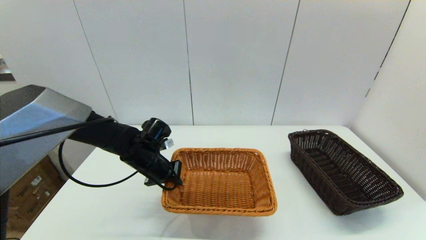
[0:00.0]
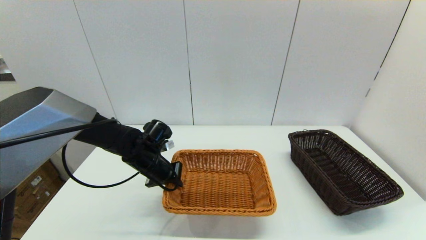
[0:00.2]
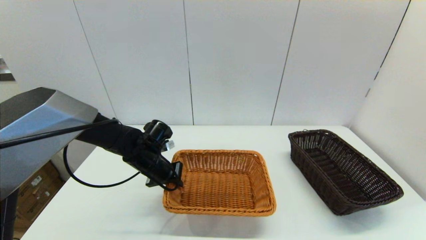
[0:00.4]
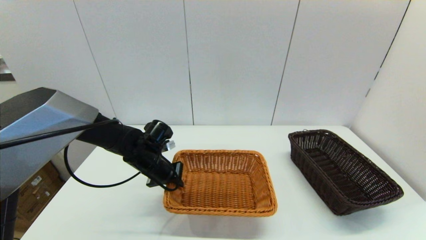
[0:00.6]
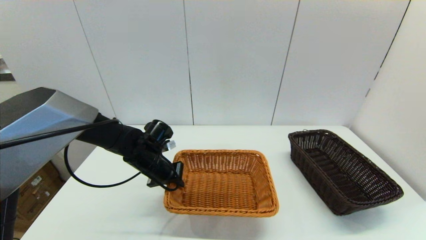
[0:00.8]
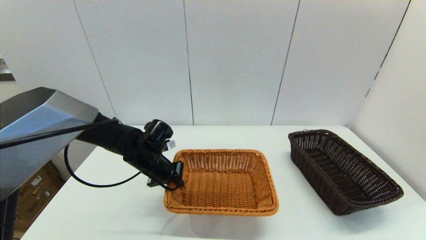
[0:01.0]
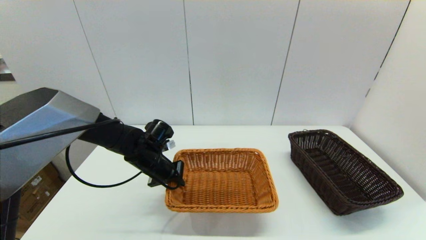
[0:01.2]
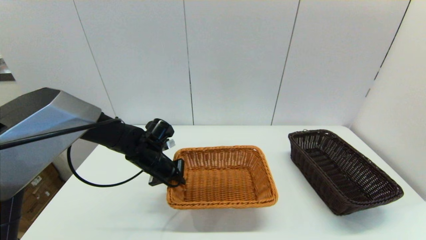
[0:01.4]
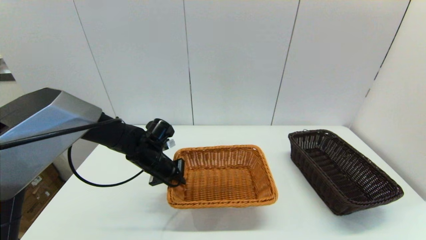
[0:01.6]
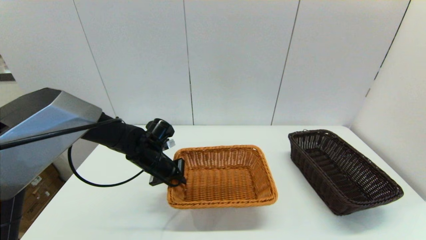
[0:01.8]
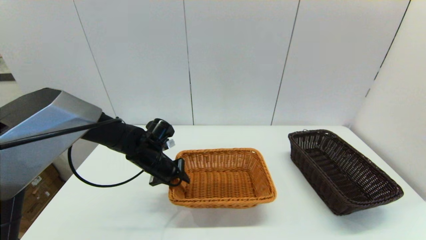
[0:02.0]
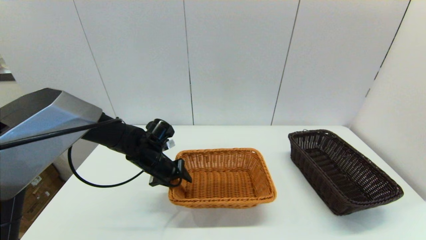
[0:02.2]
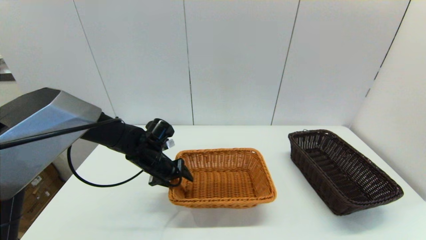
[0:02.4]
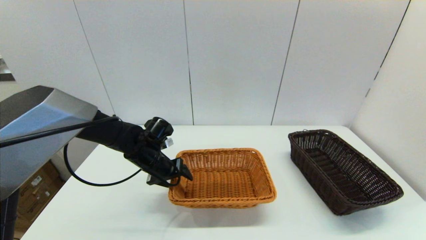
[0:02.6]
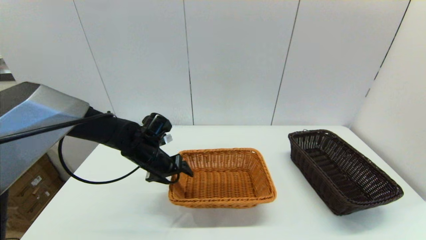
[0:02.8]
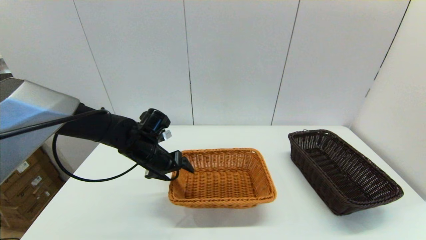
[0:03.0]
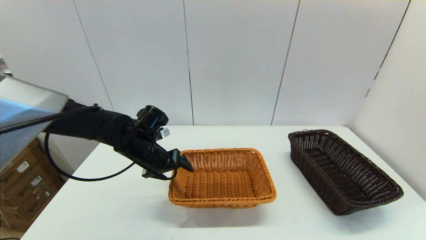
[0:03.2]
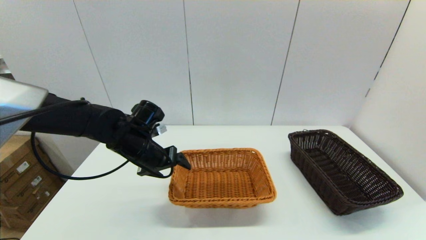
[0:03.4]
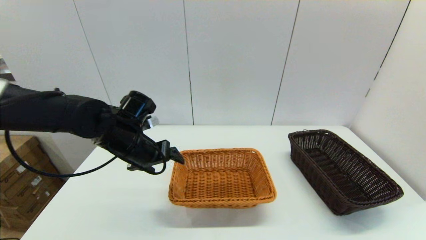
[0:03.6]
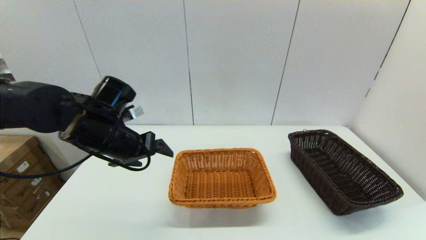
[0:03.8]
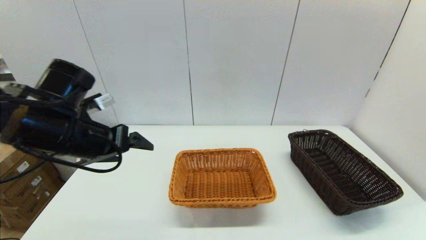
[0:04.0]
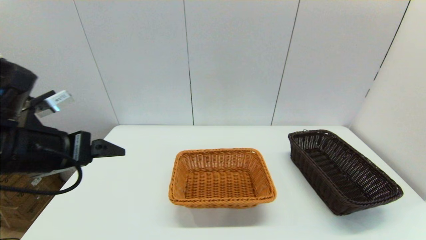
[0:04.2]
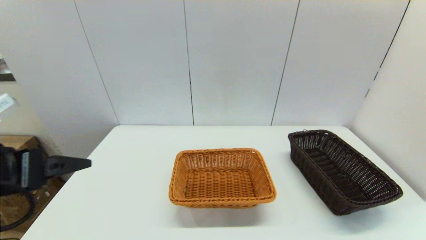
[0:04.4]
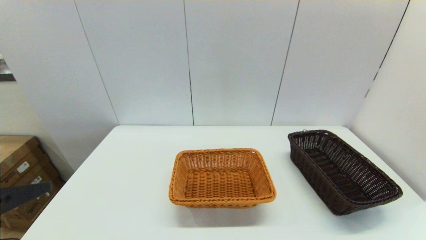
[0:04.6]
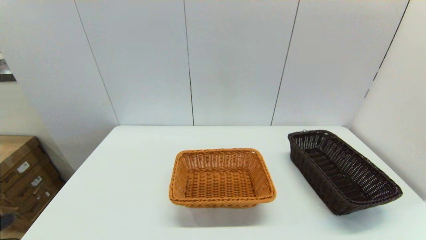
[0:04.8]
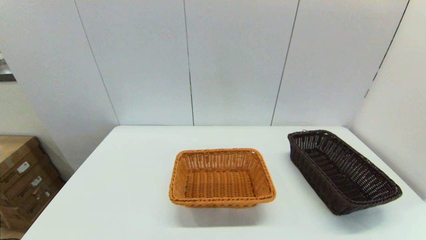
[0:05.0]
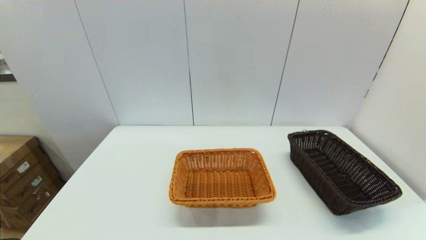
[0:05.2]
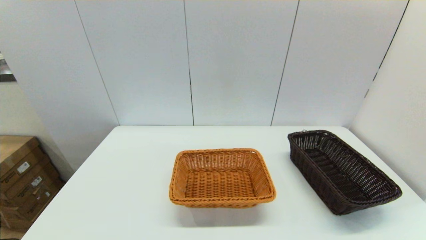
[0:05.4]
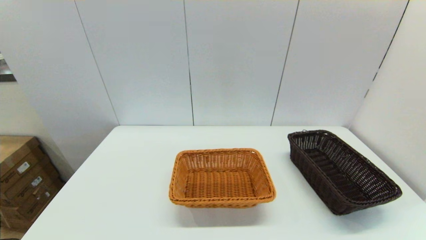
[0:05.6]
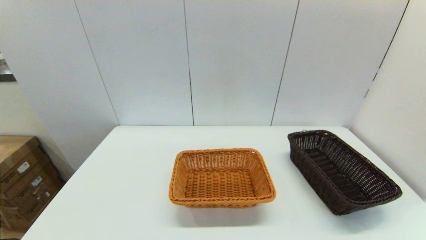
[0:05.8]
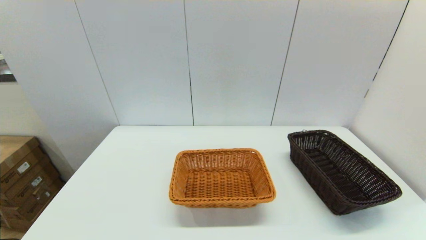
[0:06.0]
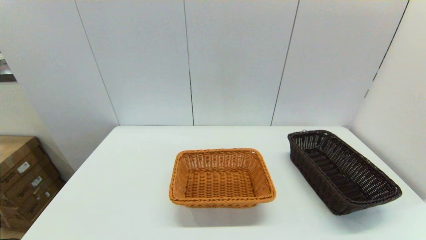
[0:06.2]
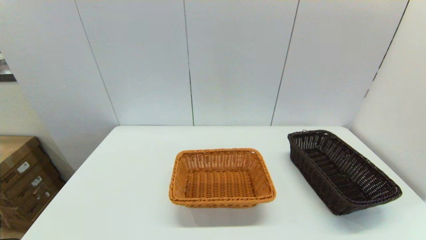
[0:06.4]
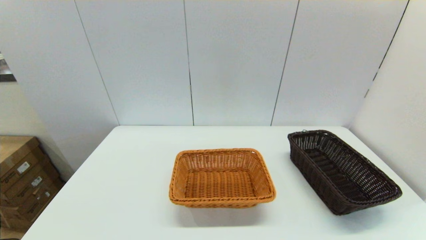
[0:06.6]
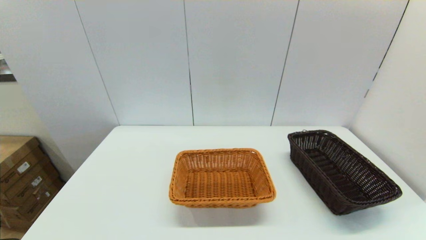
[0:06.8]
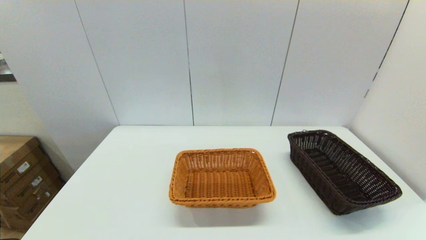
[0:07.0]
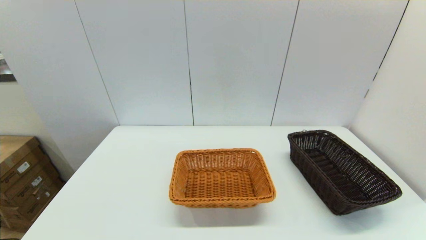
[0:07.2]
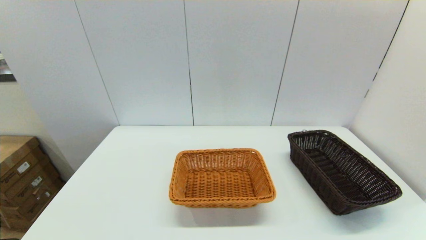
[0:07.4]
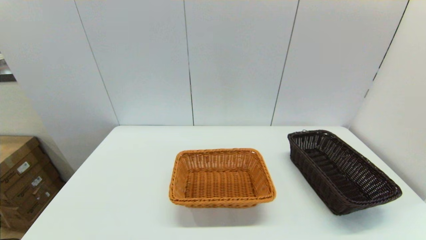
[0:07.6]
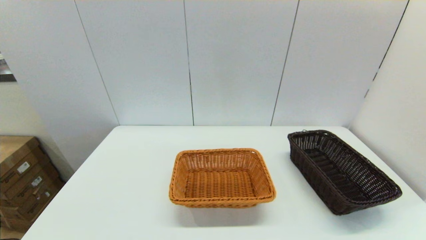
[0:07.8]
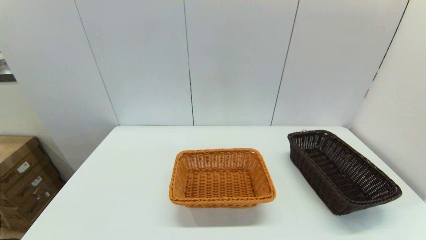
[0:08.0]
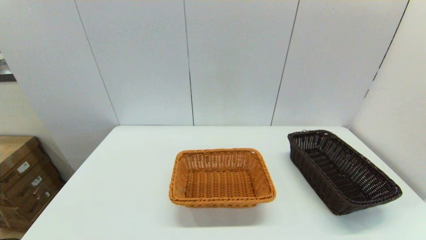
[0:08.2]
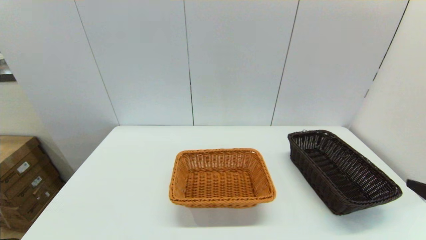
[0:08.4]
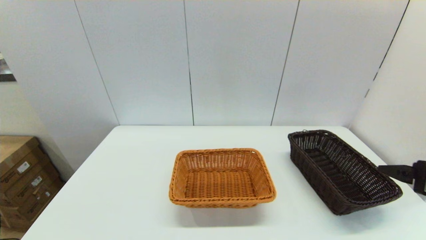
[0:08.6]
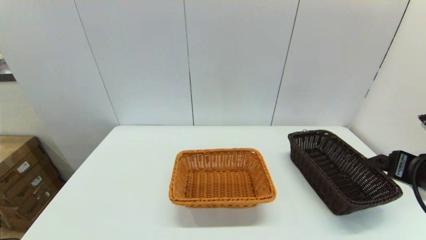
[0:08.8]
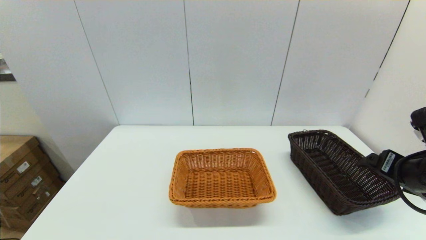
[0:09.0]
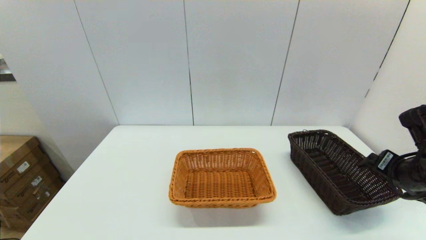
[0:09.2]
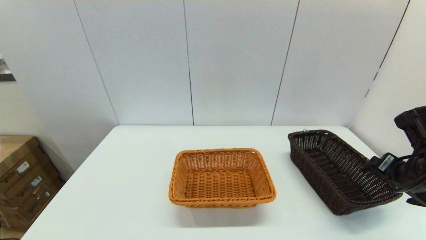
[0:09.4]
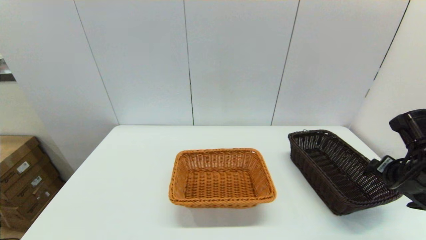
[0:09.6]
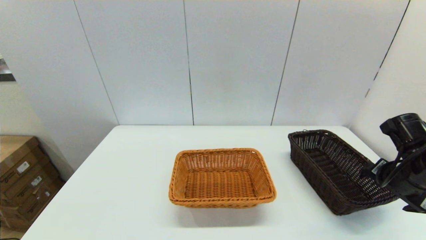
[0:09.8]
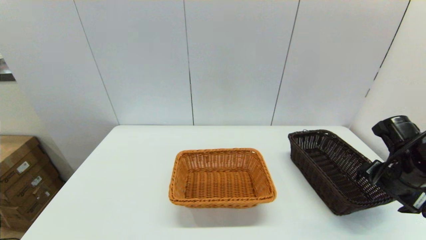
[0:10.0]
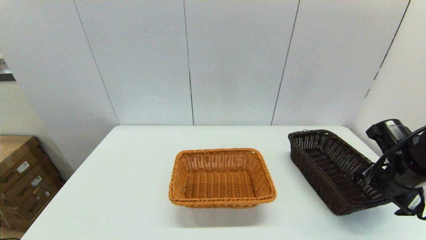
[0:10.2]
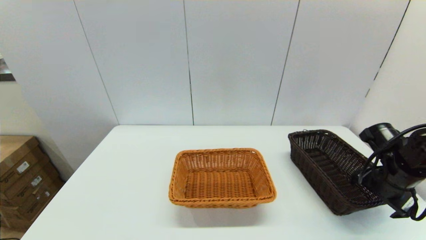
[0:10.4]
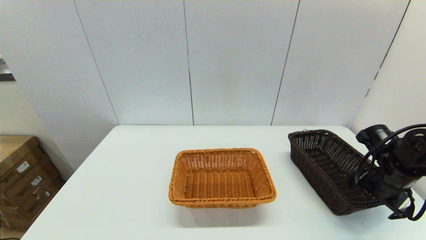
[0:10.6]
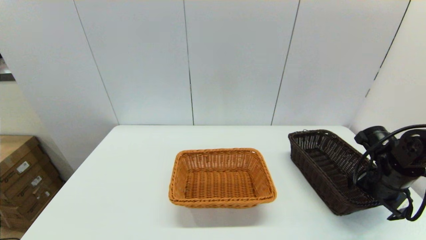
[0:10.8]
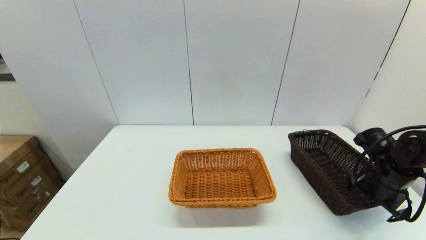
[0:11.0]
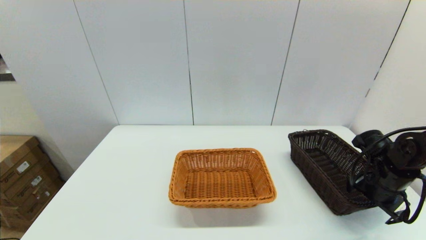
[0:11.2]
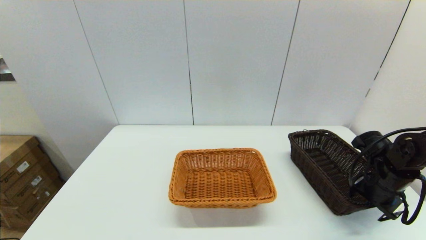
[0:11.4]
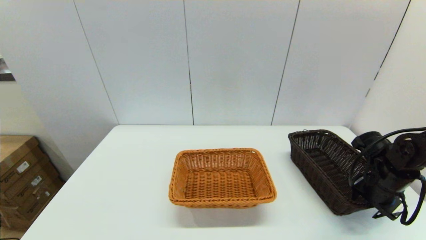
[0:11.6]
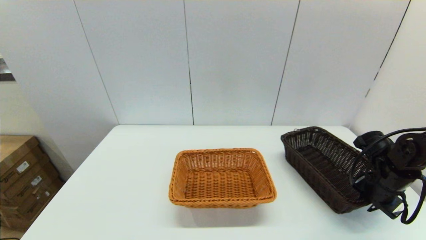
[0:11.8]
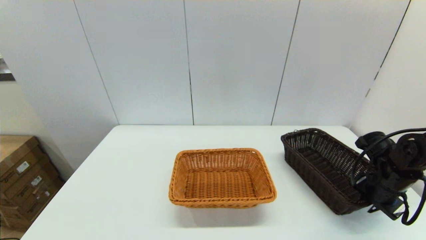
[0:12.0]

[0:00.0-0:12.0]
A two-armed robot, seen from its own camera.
Task of the whole recording: stack a basket on top of another basket.
Step, 0:00.0 to 0:03.4: Place the light basket on the middle of the table with the left gripper.
0:00.0 to 0:01.6: Neither gripper changes place.
0:01.6 to 0:03.0: The left gripper opens its fingers.
0:03.0 to 0:04.4: The left gripper moves backward, upward and to the left, some 30 cm.
0:04.4 to 0:06.0: The left gripper travels backward by some 20 cm.
0:07.6 to 0:09.0: The right gripper is displaced forward by about 25 cm.
0:09.0 to 0:10.4: The right gripper is displaced downward and forward by some 10 cm.
0:10.4 to 0:12.0: The right gripper closes its fingers.

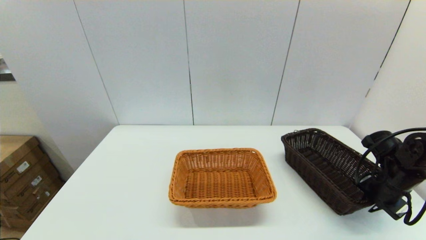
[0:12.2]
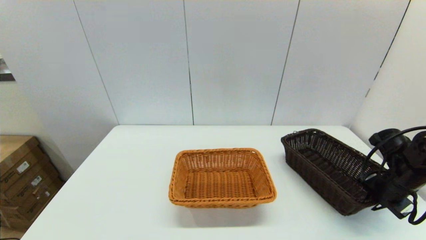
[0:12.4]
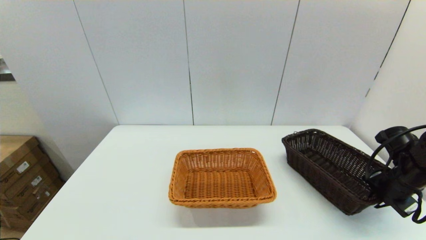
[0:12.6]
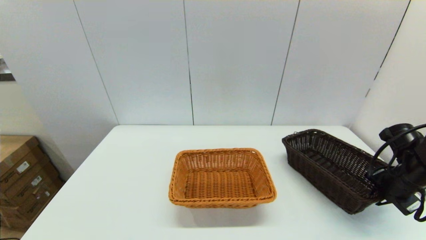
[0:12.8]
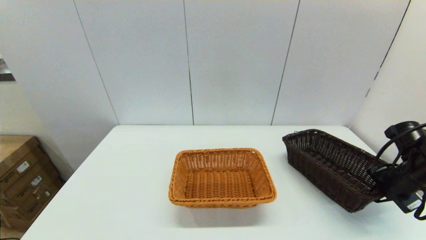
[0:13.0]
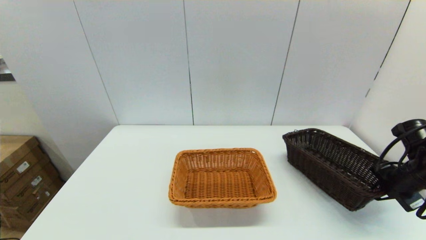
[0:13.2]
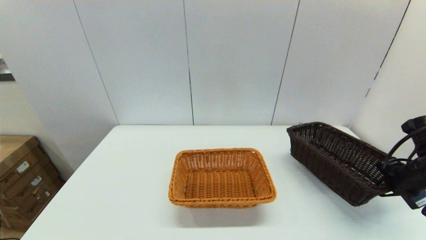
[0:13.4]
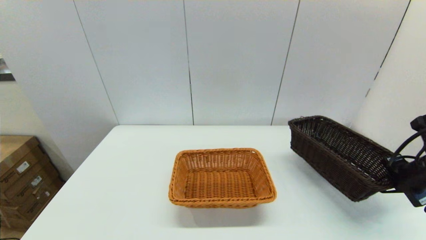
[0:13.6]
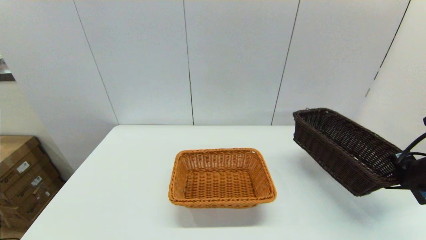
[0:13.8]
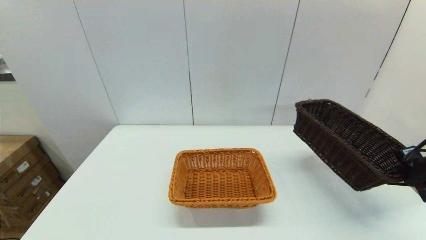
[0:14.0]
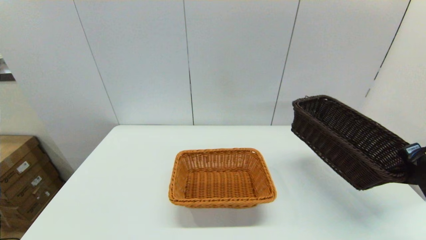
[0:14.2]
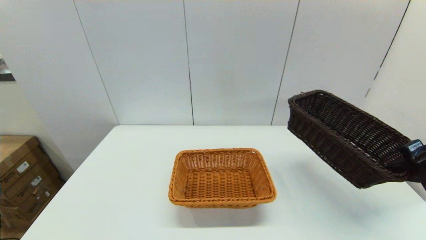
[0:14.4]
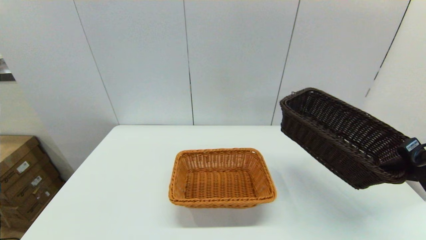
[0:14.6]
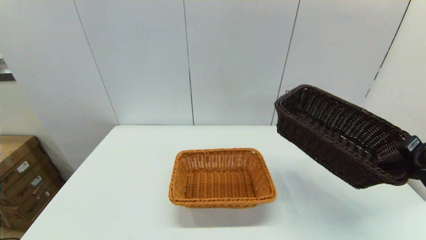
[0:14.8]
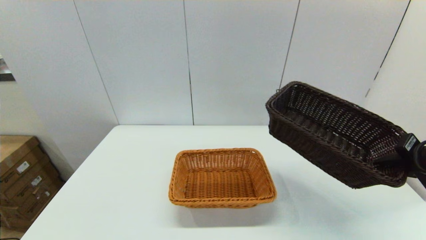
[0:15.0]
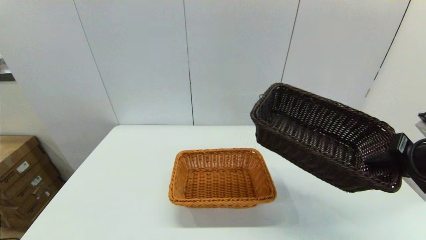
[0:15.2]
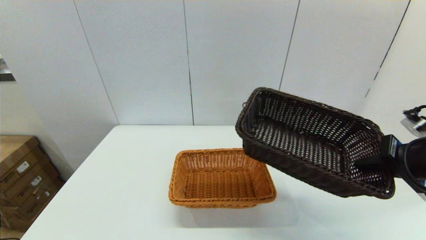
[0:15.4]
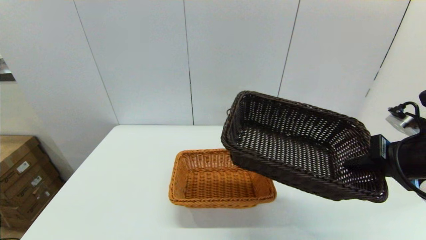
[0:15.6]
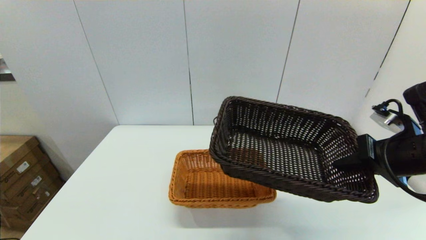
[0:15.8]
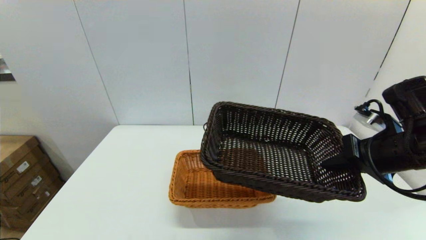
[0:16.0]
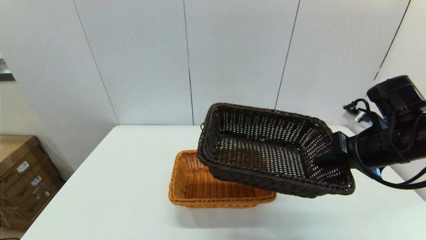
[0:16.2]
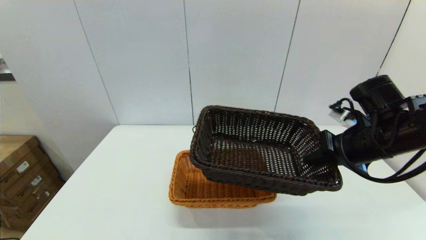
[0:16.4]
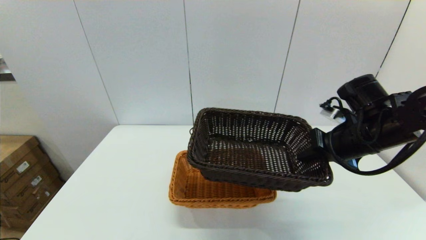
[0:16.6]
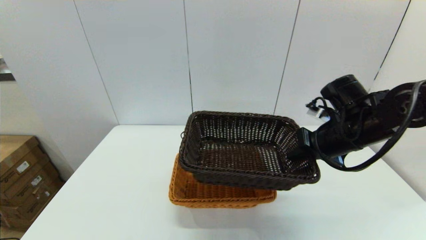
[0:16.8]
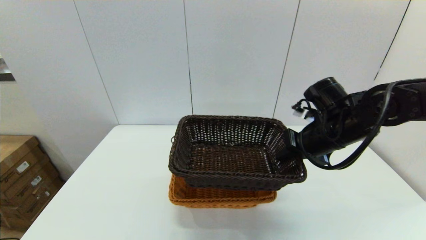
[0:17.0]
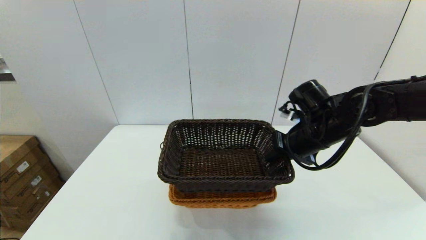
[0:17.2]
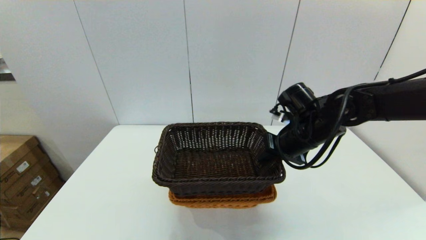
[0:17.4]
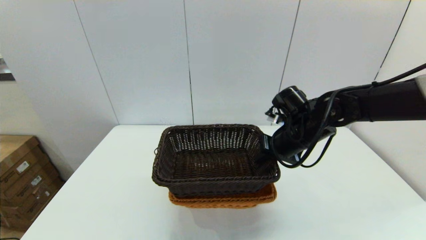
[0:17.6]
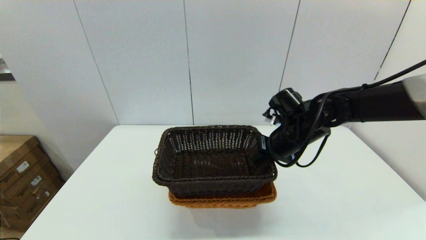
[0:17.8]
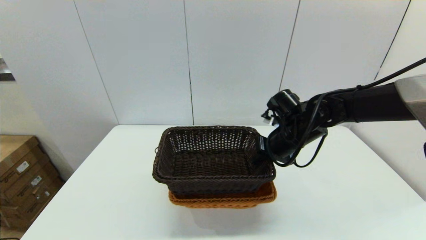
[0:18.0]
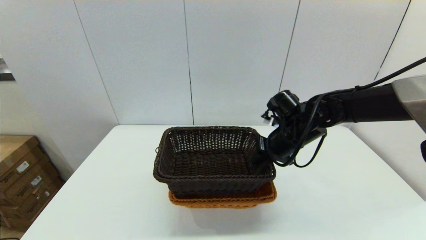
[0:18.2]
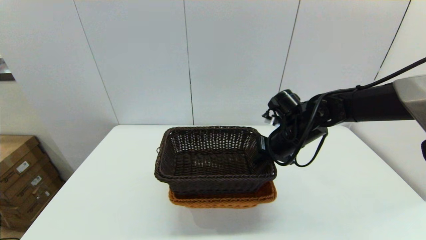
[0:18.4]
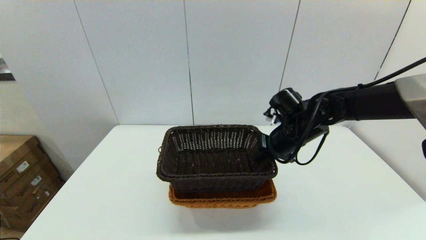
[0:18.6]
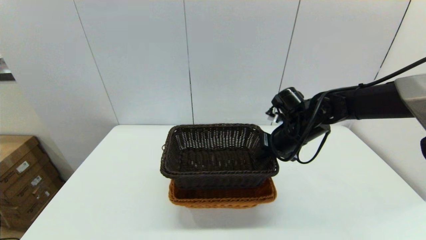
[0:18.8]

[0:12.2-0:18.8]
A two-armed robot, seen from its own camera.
Task of the whole recording: stack a basket on top of another basket.
0:12.2 to 0:13.8: The right gripper travels upward by roughly 5 cm.
0:13.8 to 0:15.4: The right gripper is displaced to the left and upward by approximately 10 cm.
0:15.4 to 0:17.2: The right gripper is displaced to the left and forward by about 20 cm.
0:17.2 to 0:18.8: The right gripper moves some 5 cm.
